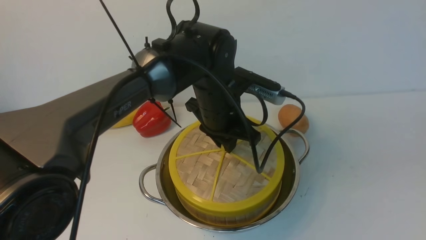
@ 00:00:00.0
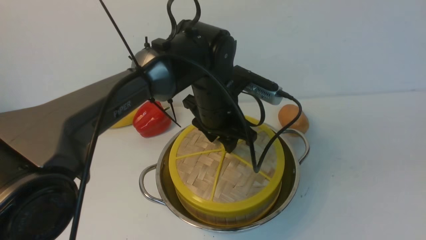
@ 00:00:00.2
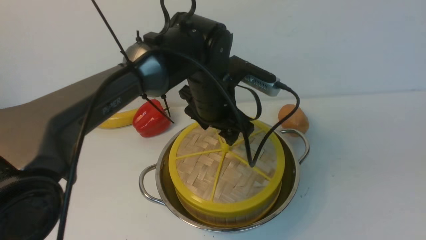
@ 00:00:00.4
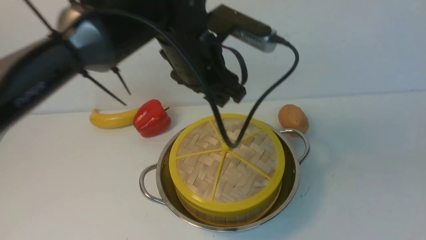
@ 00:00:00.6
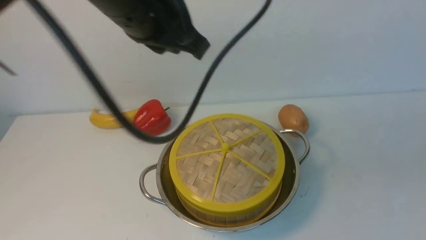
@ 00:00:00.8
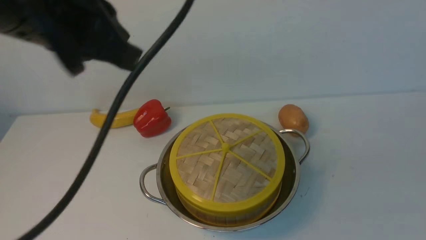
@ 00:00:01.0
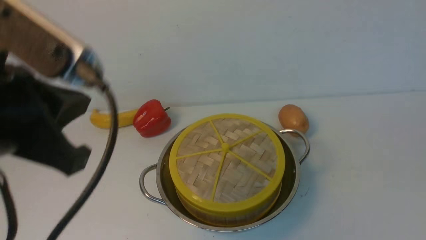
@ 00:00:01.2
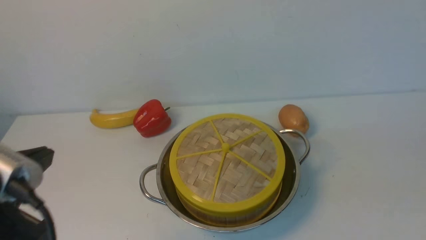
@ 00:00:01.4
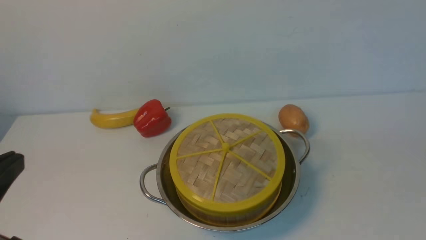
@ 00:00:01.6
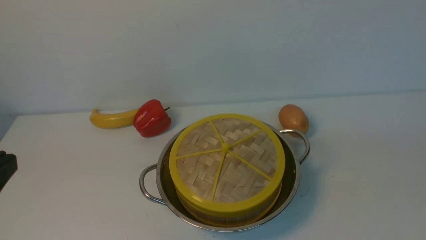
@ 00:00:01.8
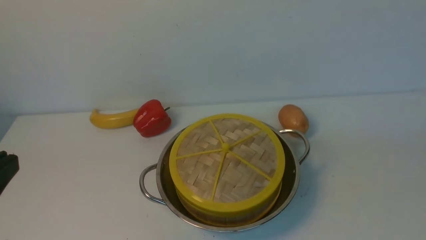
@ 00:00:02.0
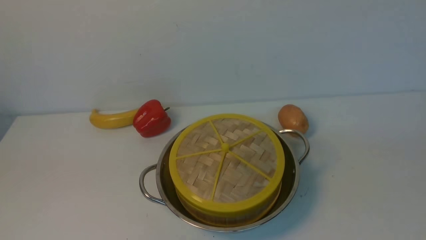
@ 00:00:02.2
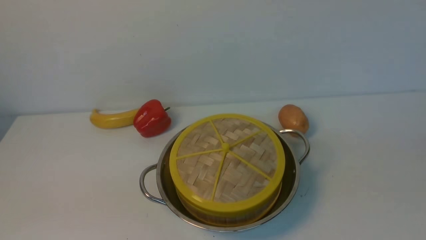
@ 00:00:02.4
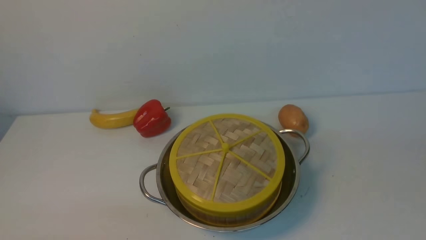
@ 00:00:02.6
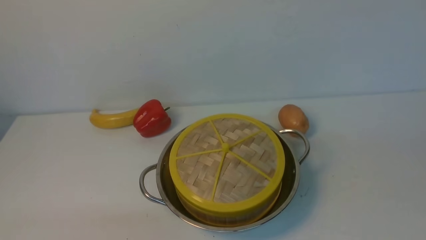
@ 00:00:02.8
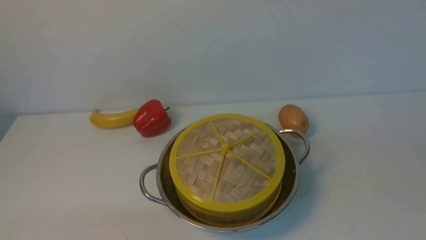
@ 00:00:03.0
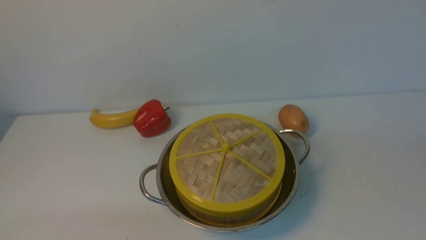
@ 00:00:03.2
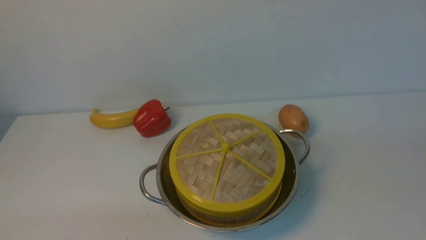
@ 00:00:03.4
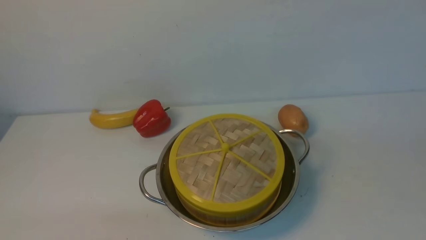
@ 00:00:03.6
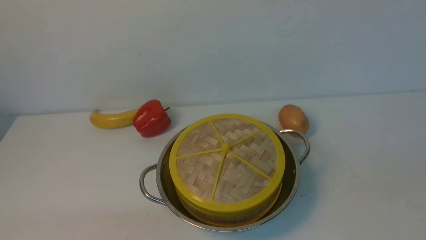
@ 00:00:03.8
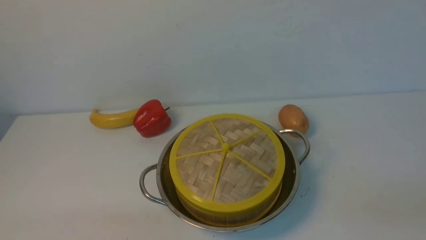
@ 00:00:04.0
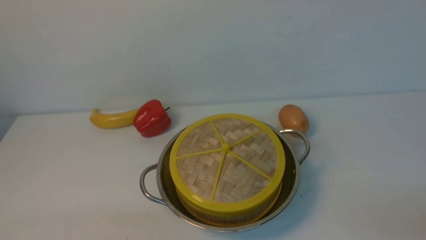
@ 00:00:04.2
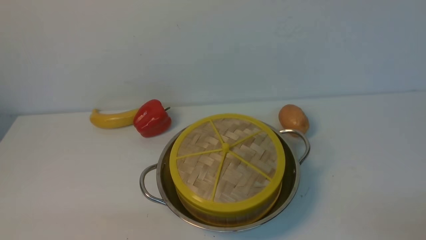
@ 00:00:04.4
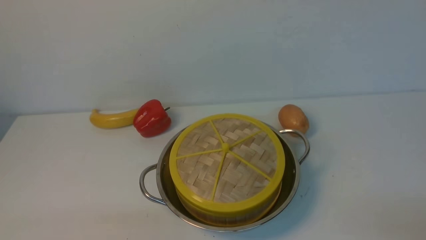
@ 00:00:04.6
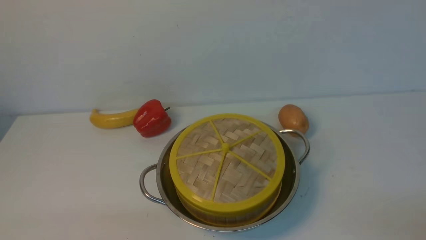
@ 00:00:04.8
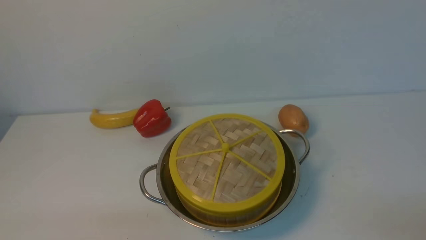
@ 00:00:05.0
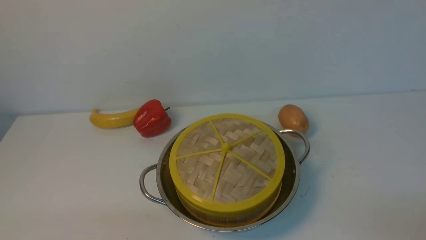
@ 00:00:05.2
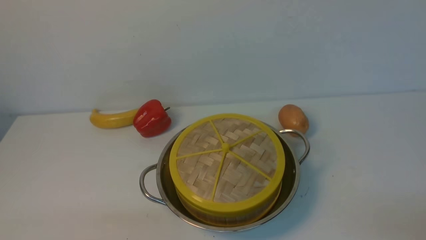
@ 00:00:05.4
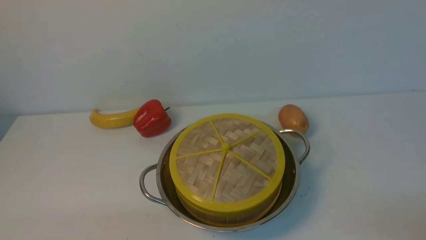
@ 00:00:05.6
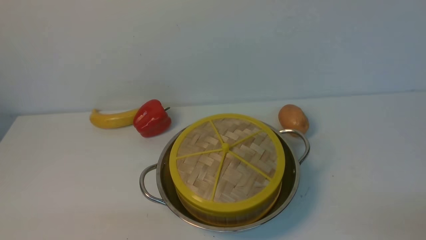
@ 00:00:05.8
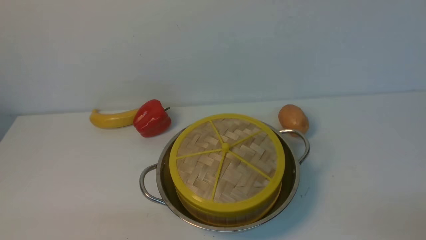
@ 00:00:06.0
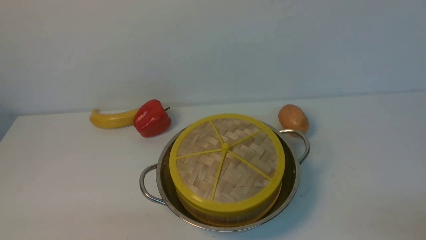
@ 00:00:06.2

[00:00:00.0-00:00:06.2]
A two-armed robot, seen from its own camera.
Task of the whole recording: place the steamer in the pot on the white table, and put the lid on the steamer.
00:00:00.0 to 00:00:01.6: The right gripper moves downward, approximately 10 cm. Meanwhile the left gripper moves backward and to the left, some 35 cm, and closes up.
00:00:01.6 to 00:00:03.2: The left gripper shifts some 15 cm downward.
00:00:04.6 to 00:00:06.2: The two grippers keep their place.
